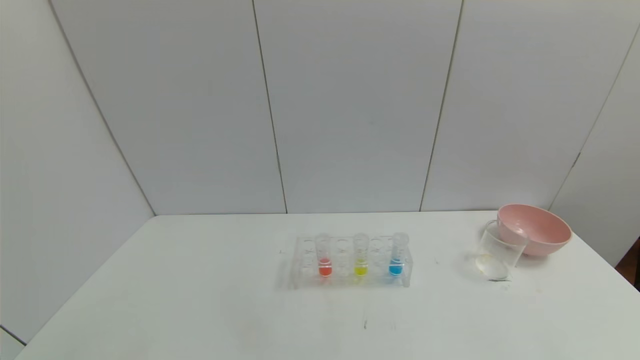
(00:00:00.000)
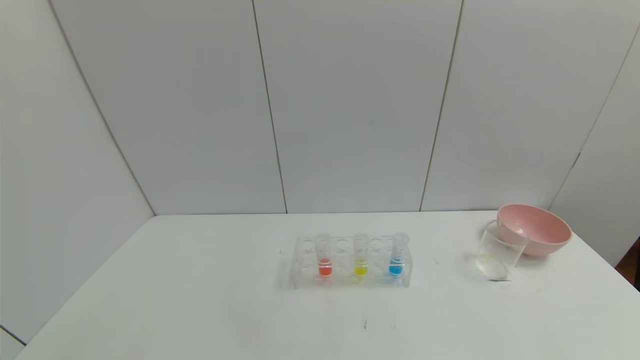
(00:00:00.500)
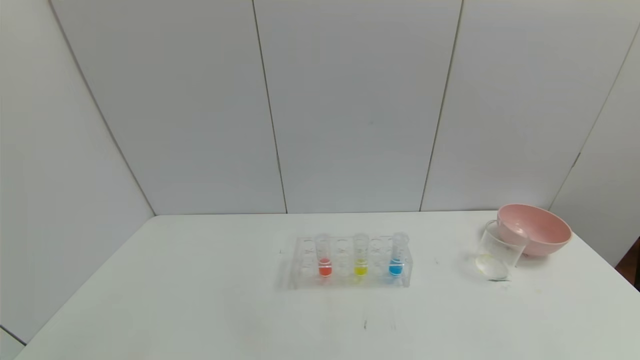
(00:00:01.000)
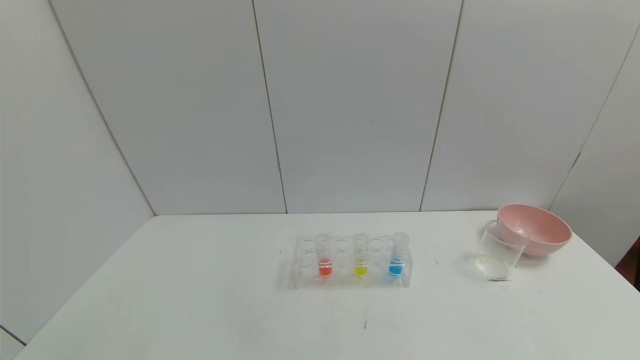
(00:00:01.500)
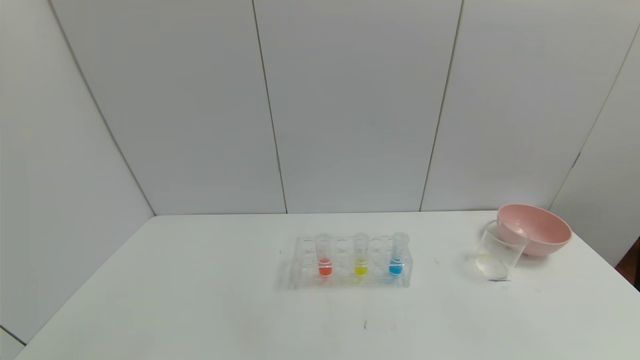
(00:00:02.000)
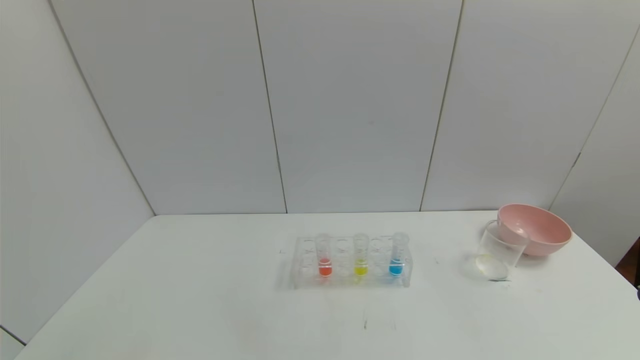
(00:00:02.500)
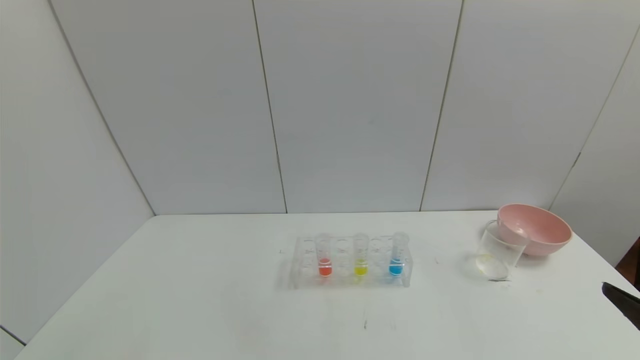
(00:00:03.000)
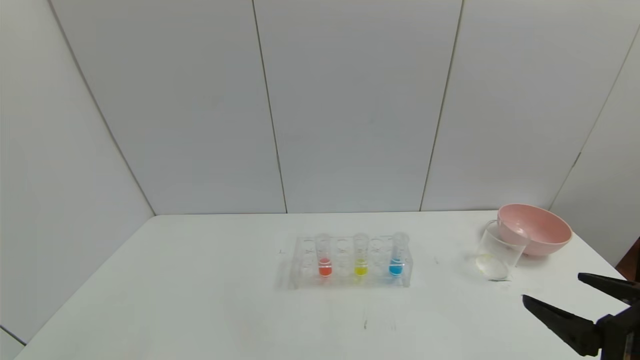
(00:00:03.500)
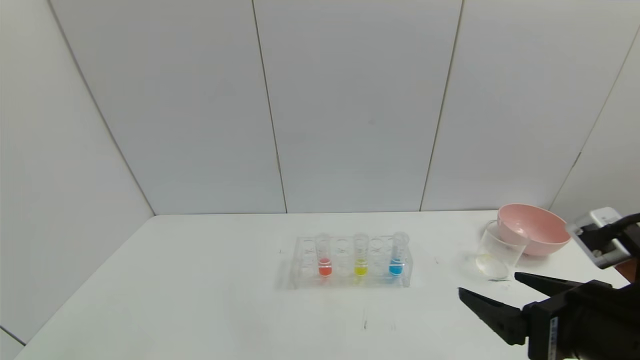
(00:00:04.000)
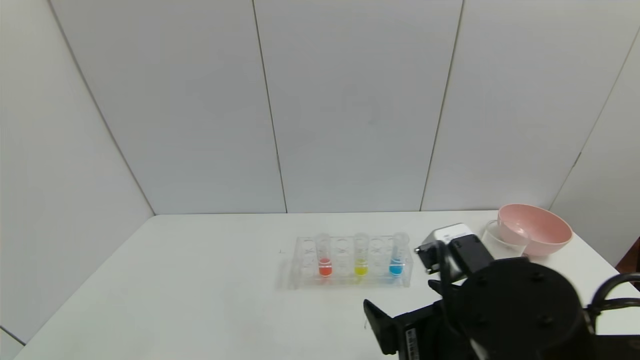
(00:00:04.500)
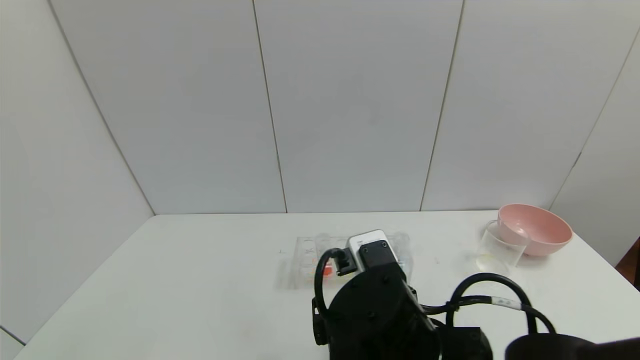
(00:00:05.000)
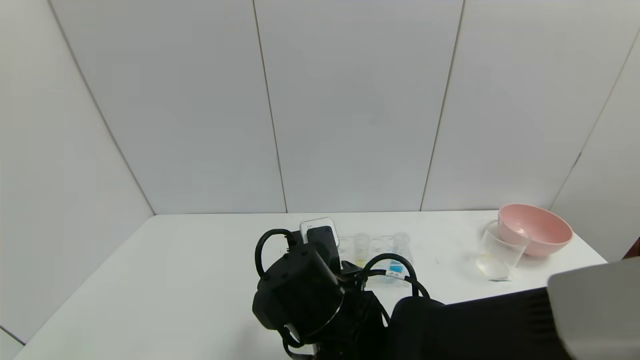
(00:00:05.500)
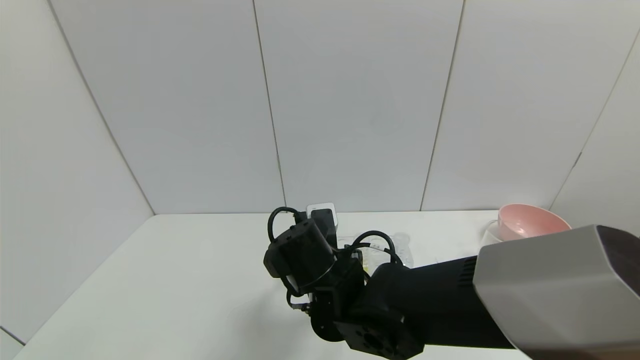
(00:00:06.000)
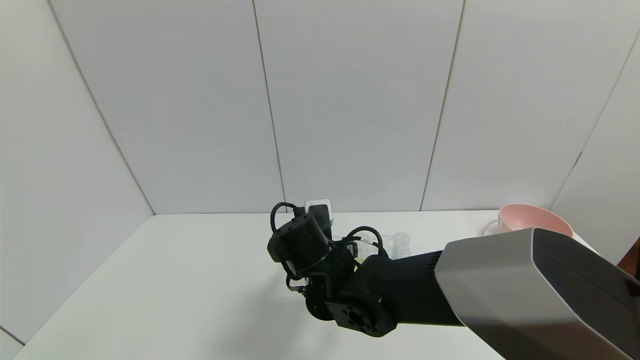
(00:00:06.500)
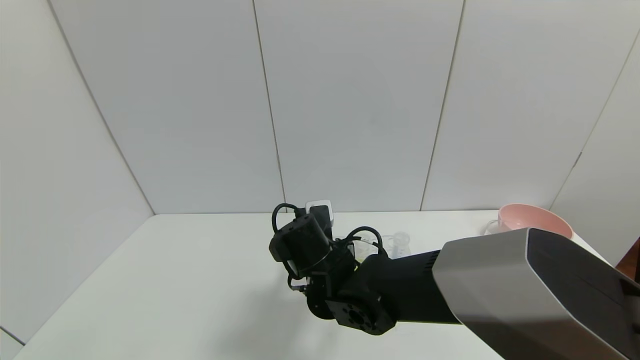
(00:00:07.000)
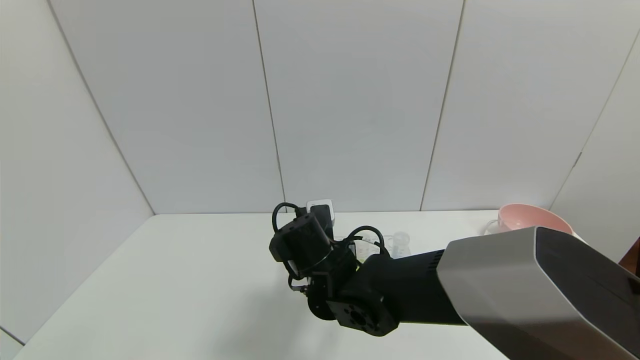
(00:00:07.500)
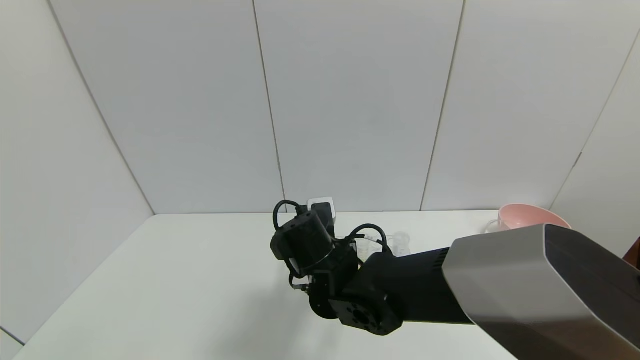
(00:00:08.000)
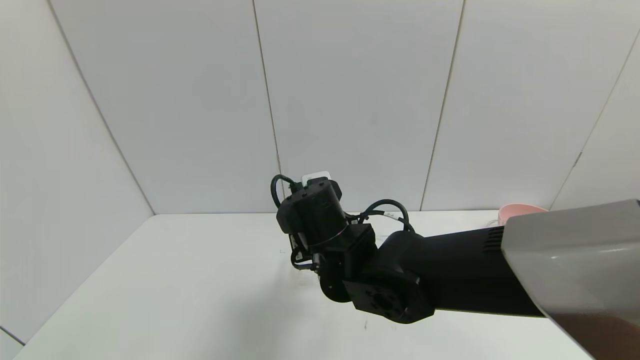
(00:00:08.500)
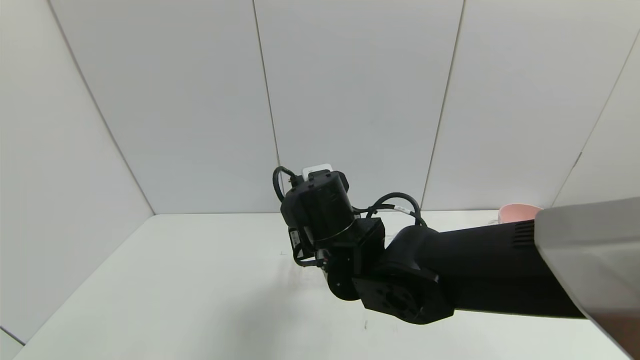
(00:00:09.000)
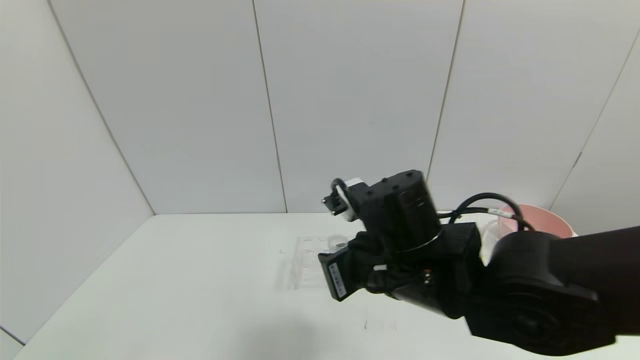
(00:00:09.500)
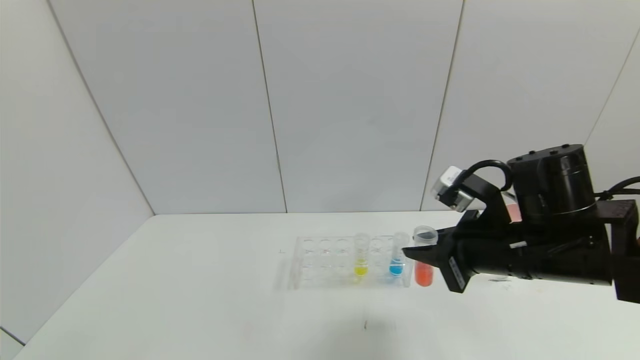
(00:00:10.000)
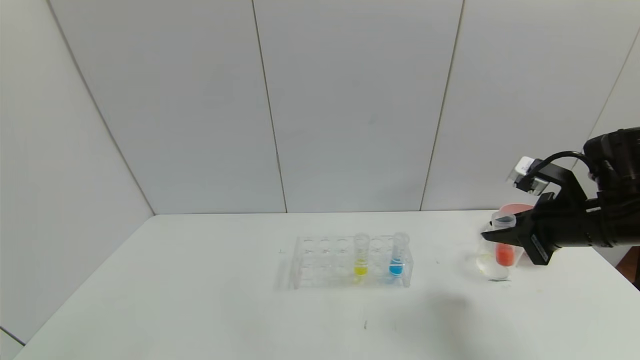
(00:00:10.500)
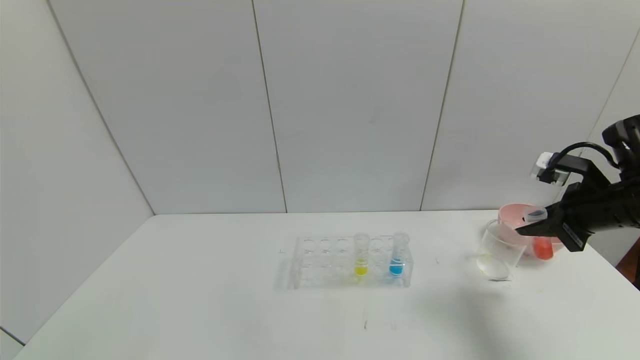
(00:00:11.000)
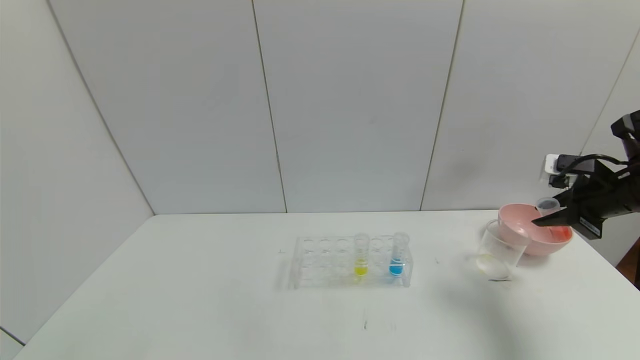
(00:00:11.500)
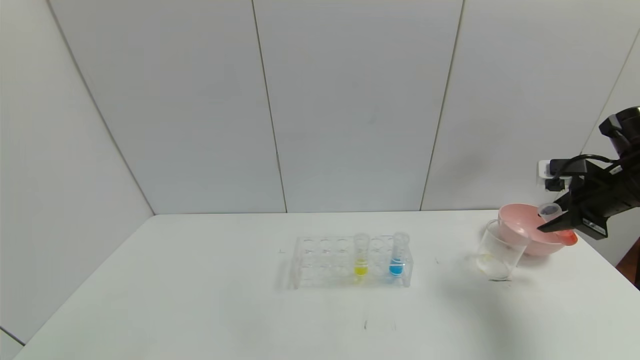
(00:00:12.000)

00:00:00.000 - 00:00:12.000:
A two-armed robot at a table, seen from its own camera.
Task of the whole recording: pick up the test tube with yellow pigment and the test tube with red pigment by grippers and pour them into the beaker.
Step, 00:00:00.000 - 00:00:07.500: Grasp the red reagent with the right gripper.
00:00:02.000 - 00:00:04.000: The right gripper heads forward and to the left, covering about 20 cm.
00:00:04.000 - 00:00:06.000: The right gripper goes approximately 30 cm to the left and forward.
00:00:06.000 - 00:00:08.000: The right gripper closes up.
00:00:08.000 - 00:00:10.000: The right gripper heads to the right, covering roughly 25 cm.
00:00:10.000 - 00:00:12.000: The right gripper travels to the right and forward by approximately 20 cm.

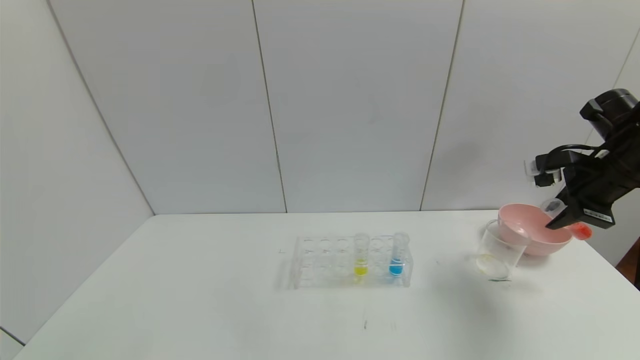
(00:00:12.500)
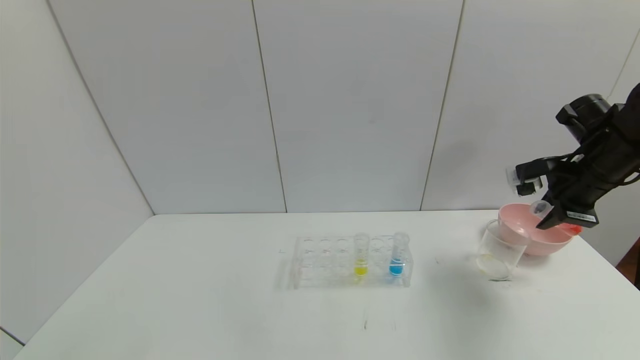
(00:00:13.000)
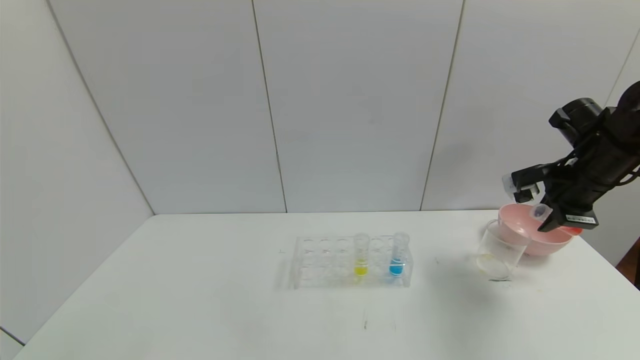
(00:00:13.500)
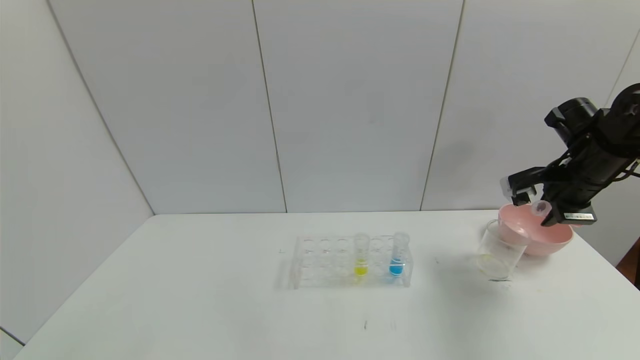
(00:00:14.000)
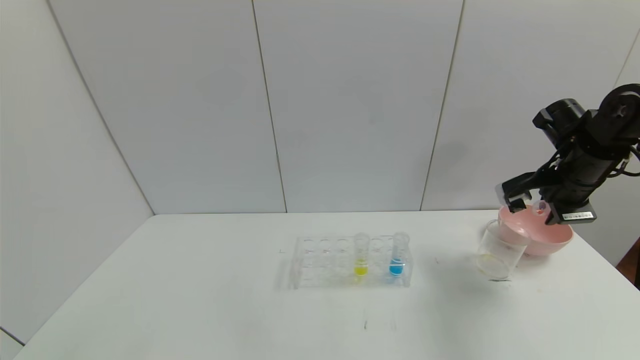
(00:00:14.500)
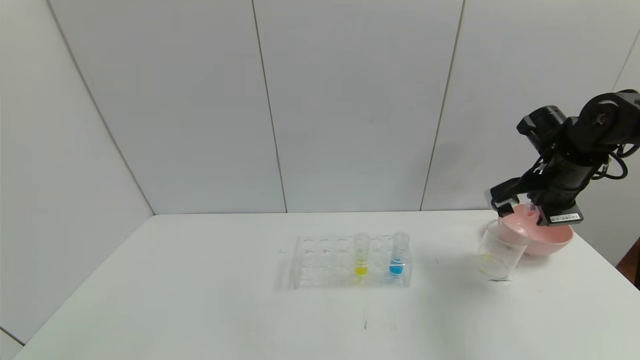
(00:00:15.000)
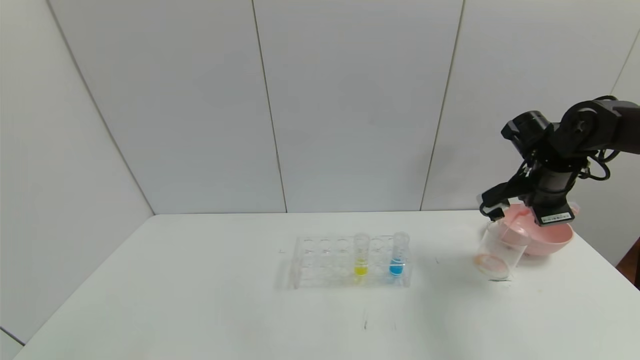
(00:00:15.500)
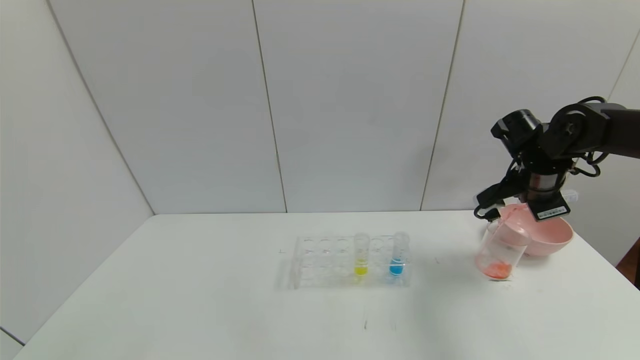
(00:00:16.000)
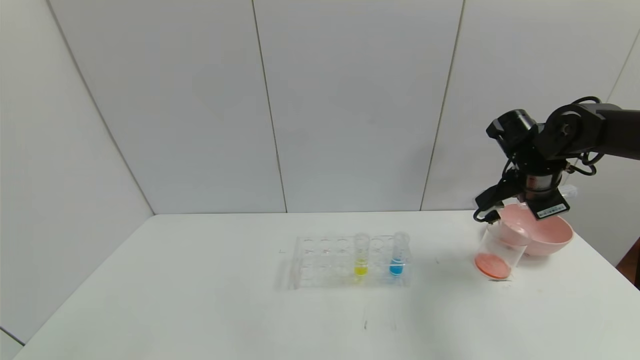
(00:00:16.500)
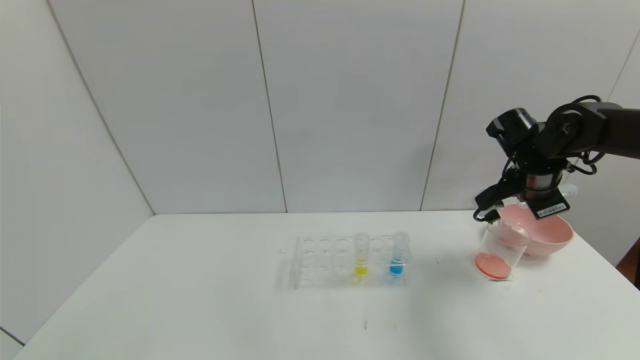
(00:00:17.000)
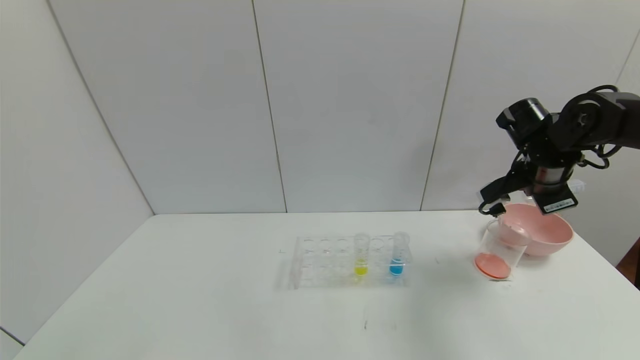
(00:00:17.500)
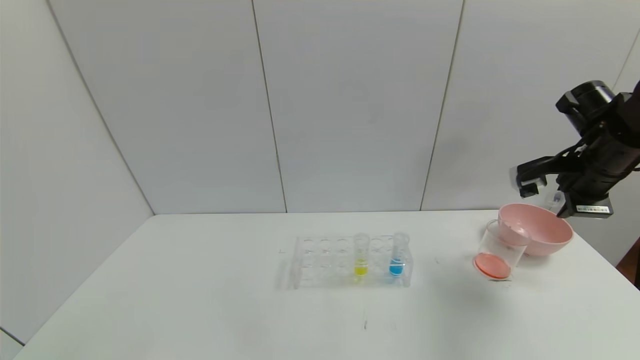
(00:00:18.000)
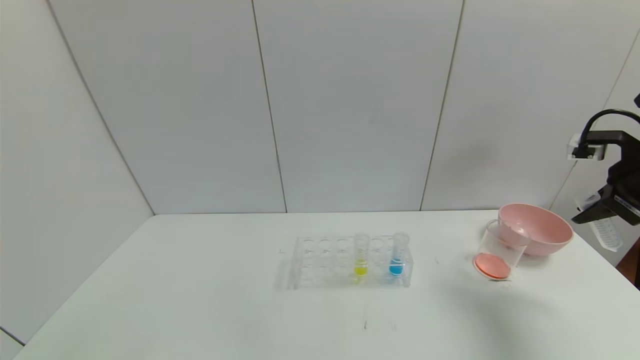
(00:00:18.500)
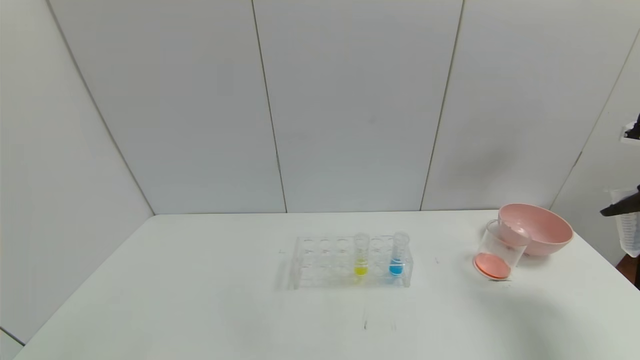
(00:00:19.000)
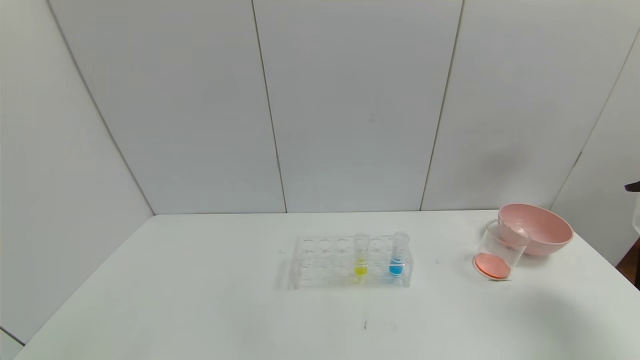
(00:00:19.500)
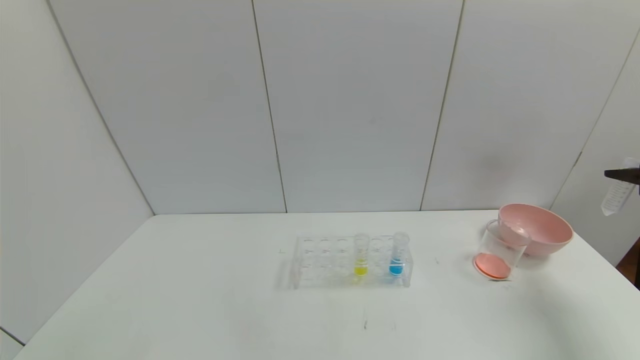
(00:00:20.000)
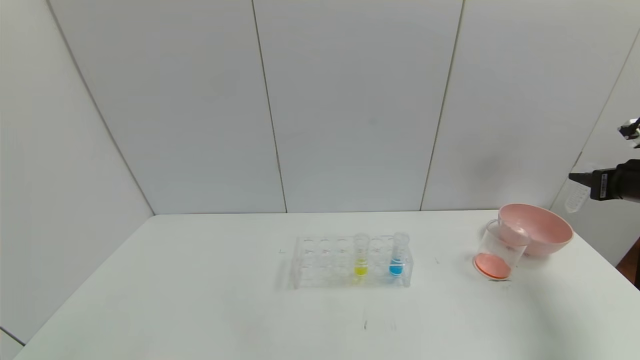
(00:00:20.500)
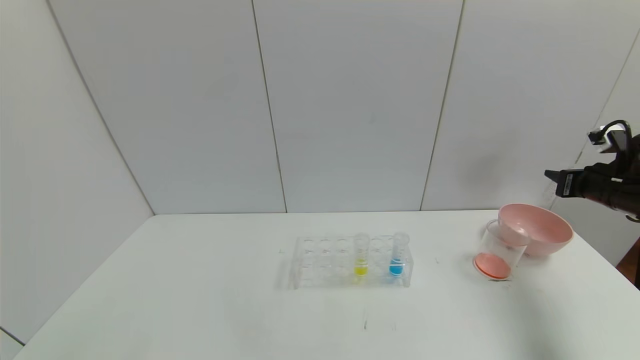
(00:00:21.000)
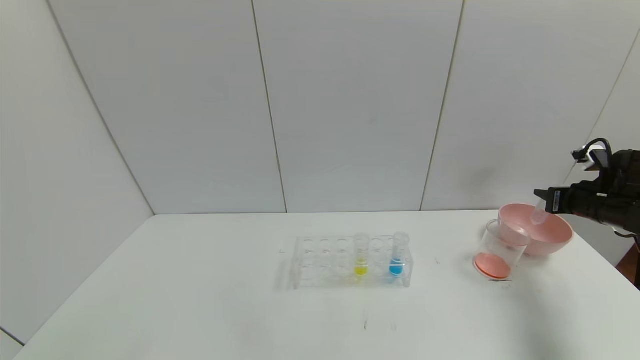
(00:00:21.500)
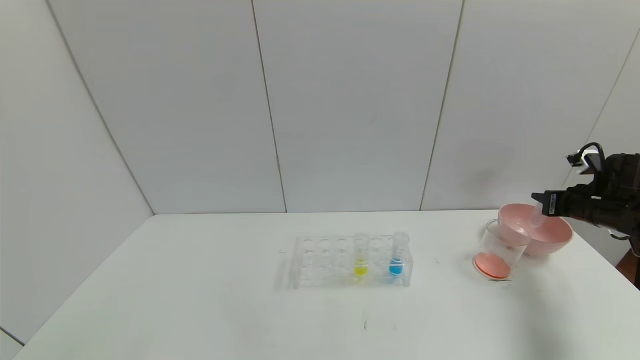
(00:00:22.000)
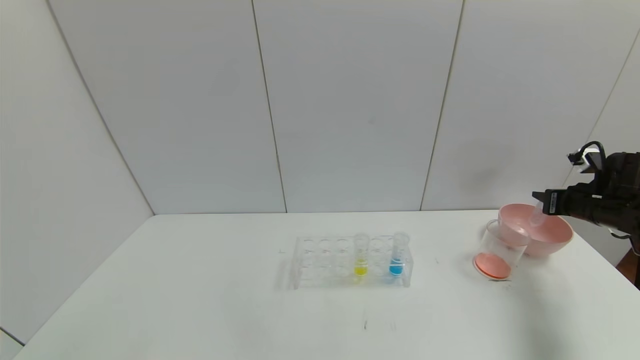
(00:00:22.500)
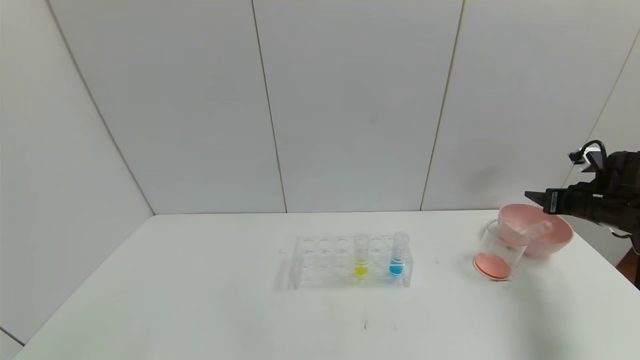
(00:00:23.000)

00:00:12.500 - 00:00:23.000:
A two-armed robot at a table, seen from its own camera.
Task of the whole recording: pick up the test tube with yellow pigment and the test tube with red pigment by grippers and pour them into the beaker.
Step, 00:00:12.500 - 00:00:16.500: Pour the red reagent into the graduated cylinder with the right gripper.
Step, 00:00:17.000 - 00:00:22.500: Place the test tube into the bowl with the right gripper.
00:00:14.500 - 00:00:16.500: The right gripper ends up approximately 5 cm from where it was.
00:00:16.500 - 00:00:19.000: The right gripper heads to the right, backward and upward, covering approximately 20 cm.
00:00:19.000 - 00:00:21.000: The right gripper travels downward and forward by approximately 15 cm.
00:00:21.000 - 00:00:23.000: The right gripper opens.
